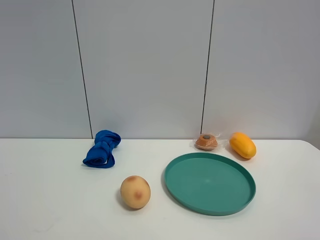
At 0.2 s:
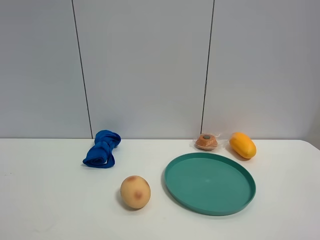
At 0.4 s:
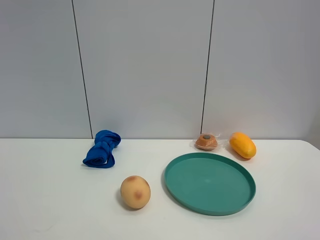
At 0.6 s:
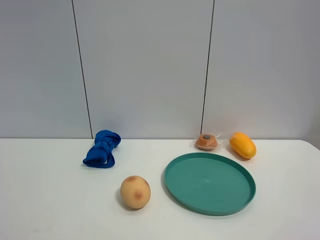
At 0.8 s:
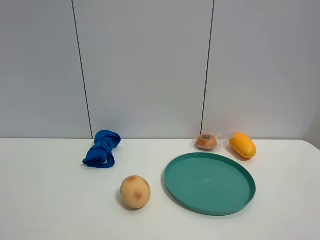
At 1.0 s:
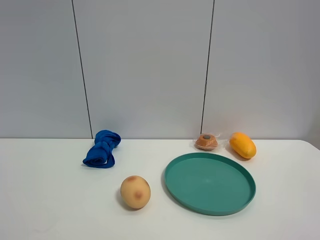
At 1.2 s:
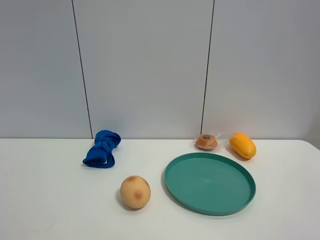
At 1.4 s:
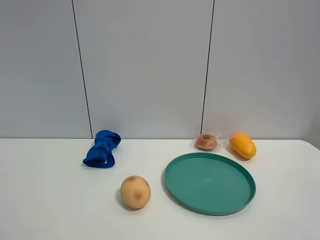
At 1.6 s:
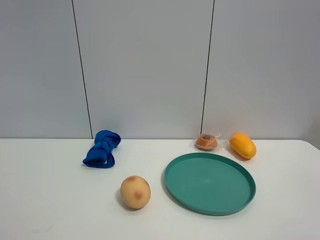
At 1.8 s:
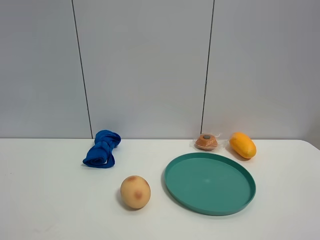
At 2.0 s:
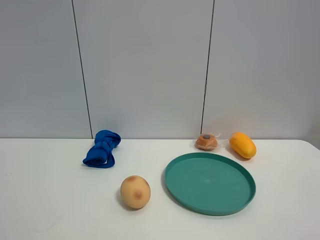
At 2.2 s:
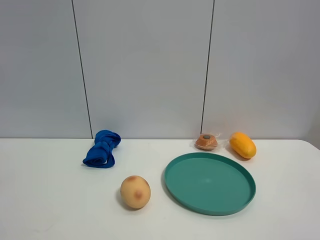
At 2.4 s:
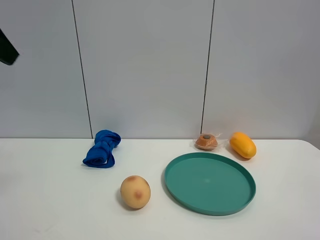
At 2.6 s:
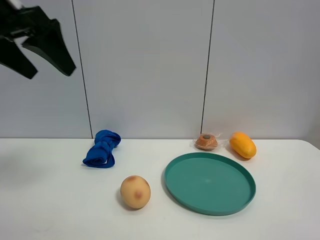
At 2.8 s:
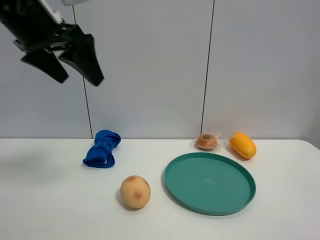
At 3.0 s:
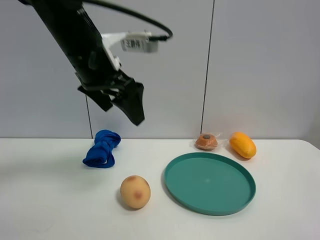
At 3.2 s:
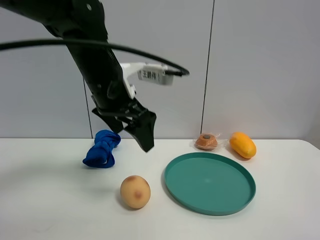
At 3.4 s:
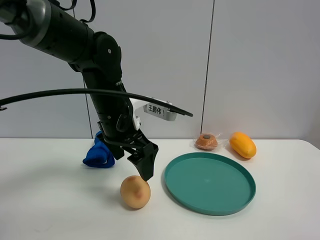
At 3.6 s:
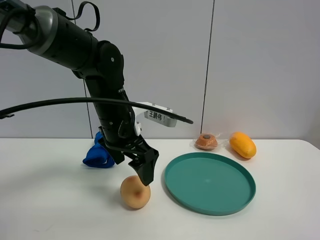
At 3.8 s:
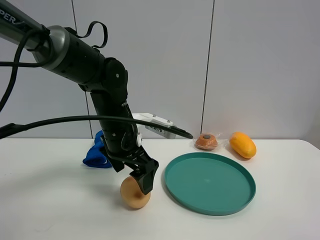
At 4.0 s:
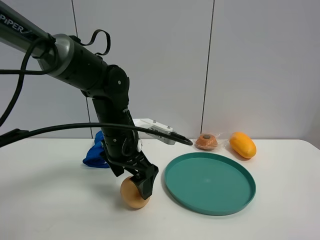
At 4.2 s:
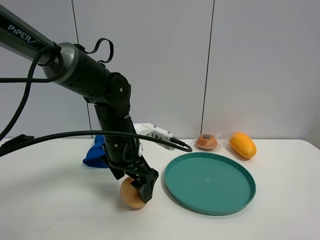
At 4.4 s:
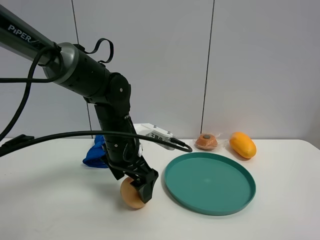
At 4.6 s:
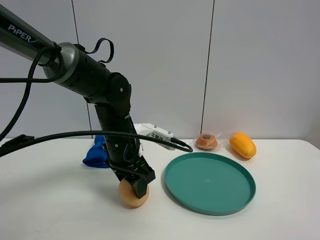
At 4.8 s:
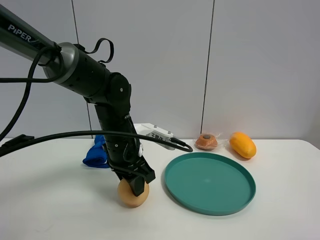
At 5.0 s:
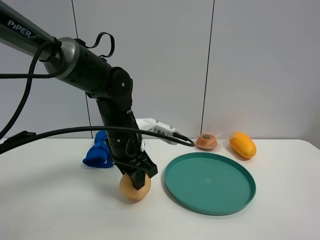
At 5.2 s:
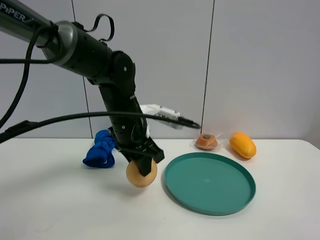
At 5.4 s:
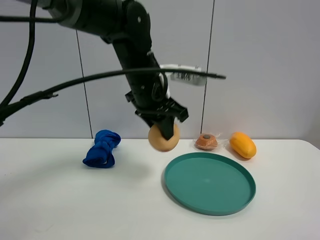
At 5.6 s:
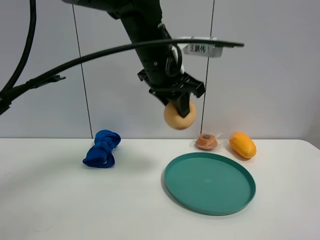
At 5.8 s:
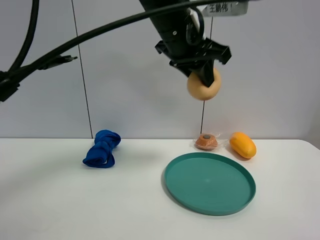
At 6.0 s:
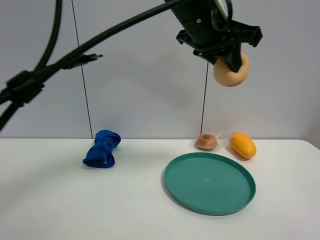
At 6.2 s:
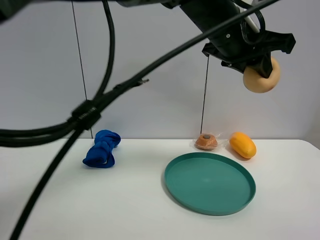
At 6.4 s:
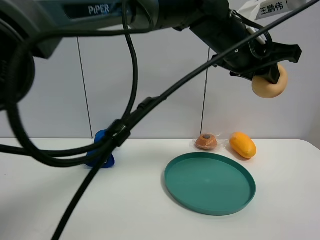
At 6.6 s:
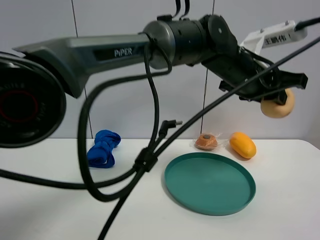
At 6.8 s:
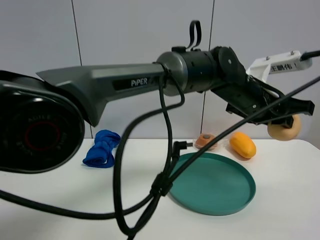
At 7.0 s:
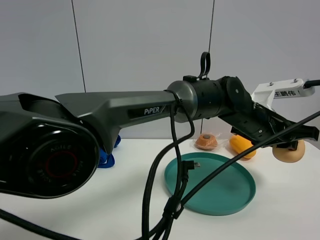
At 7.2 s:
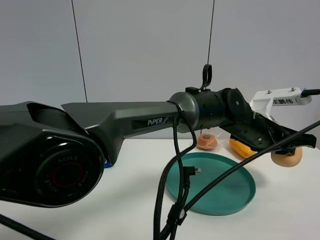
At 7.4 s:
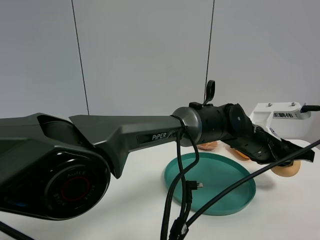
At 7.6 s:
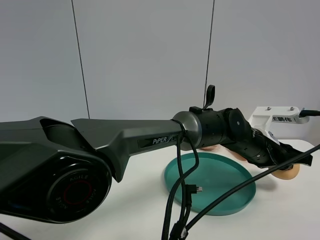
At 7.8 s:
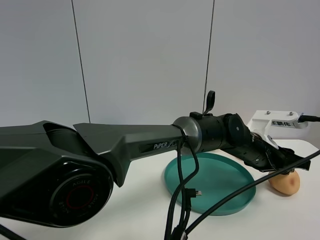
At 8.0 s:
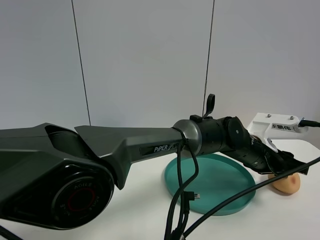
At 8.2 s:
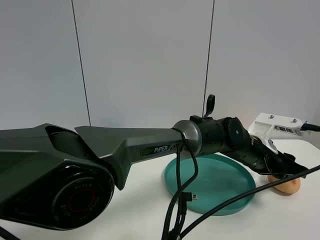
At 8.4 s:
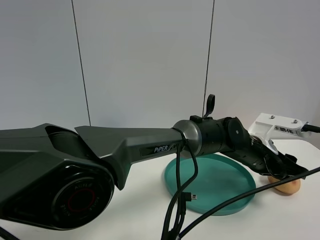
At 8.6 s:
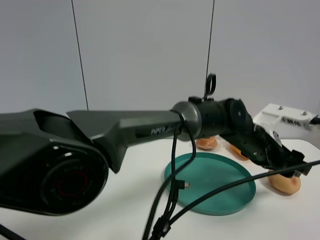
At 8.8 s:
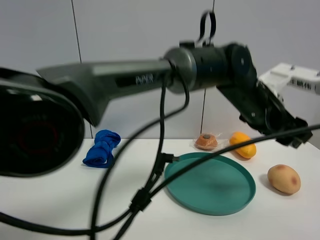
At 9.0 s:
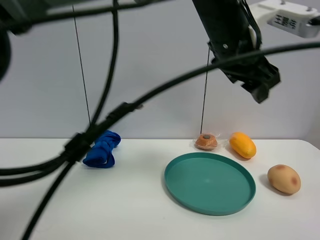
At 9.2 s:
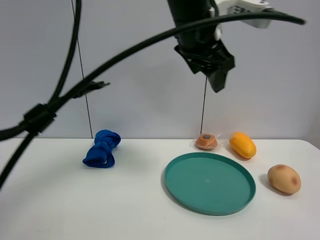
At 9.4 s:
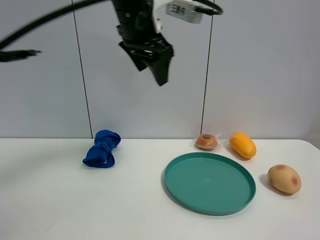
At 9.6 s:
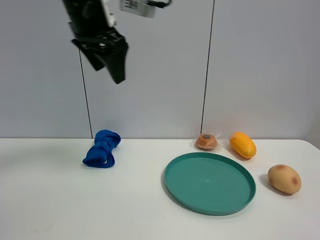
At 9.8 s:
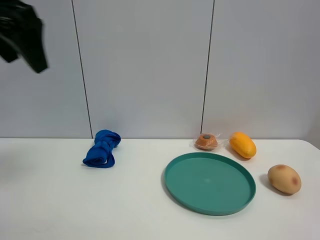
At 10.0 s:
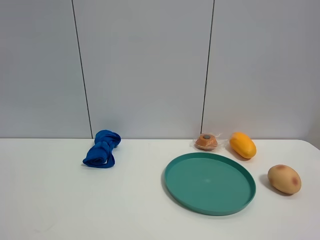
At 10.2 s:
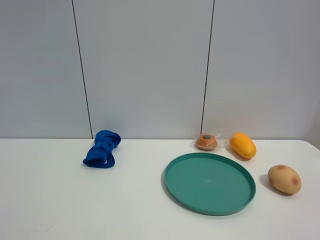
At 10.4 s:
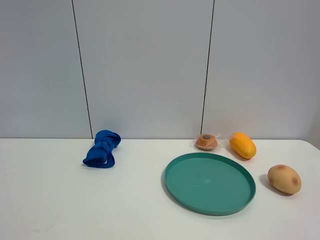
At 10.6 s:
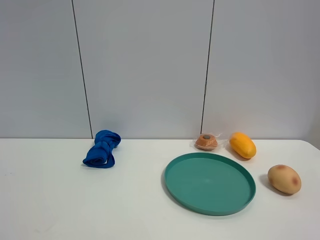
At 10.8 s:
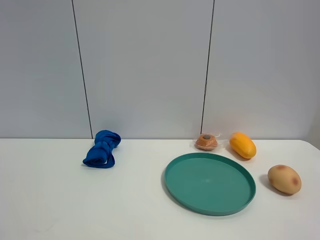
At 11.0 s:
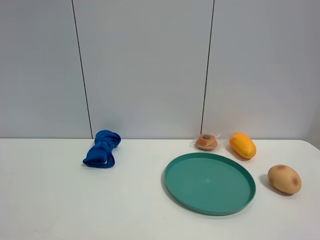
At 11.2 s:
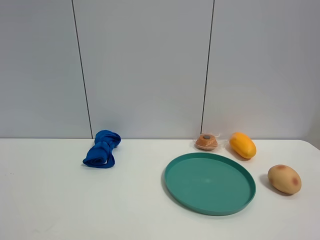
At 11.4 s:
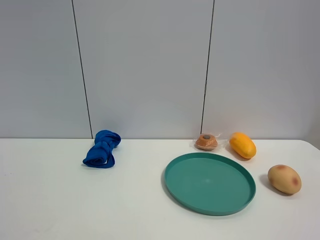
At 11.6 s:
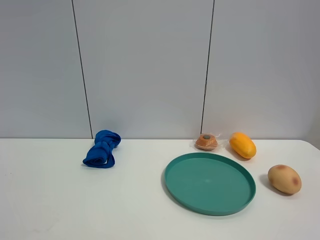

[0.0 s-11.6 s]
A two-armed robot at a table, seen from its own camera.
Task of the whole recording: the gripper move the object.
Step, 0.0 to 4.8 s: Grasp the egg yolk pastry with the left gripper.
Step, 5.0 to 8.6 s: Place the egg yolk pastry on the table with the left gripper.
1.4 to 2.8 s: The left gripper goes some 30 cm forward.
2.8 to 4.4 s: The left gripper moves downward and to the right, roughly 25 cm.
4.4 to 5.8 s: The left gripper heads upward and to the right, covering roughly 25 cm, and closes its fingers.
5.8 to 7.2 s: The left gripper is displaced downward and to the right by roughly 25 cm.
7.2 to 8.8 s: The left gripper is displaced upward by some 10 cm, and opens.
8.8 to 10.2 s: The left gripper shifts about 60 cm to the left and backward.

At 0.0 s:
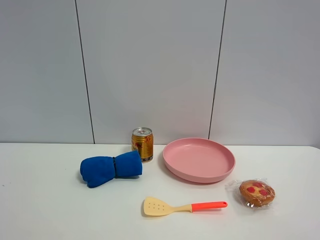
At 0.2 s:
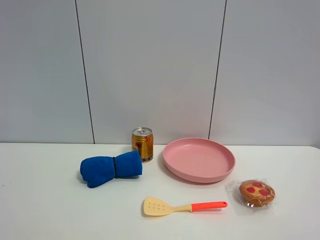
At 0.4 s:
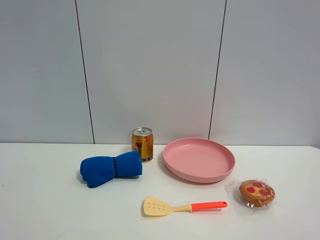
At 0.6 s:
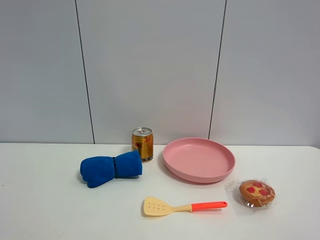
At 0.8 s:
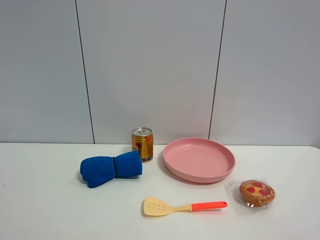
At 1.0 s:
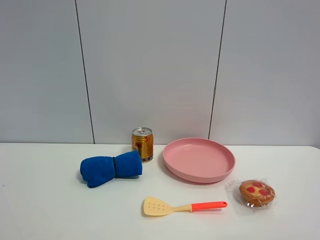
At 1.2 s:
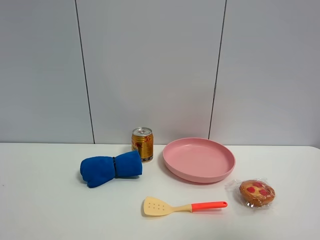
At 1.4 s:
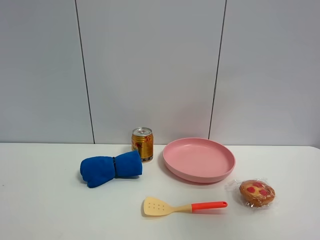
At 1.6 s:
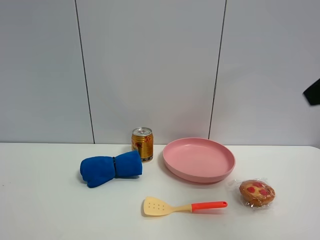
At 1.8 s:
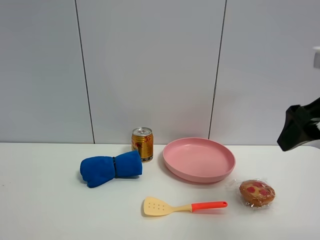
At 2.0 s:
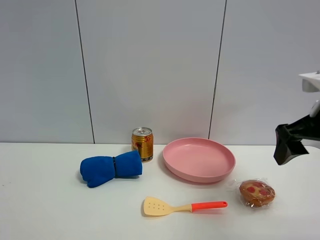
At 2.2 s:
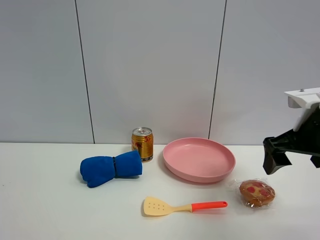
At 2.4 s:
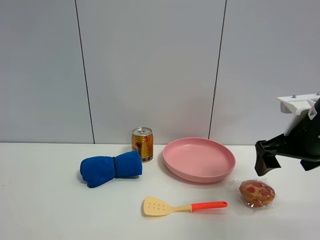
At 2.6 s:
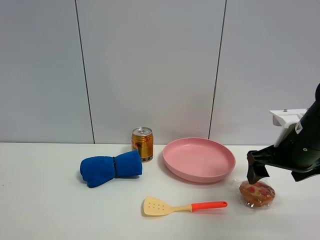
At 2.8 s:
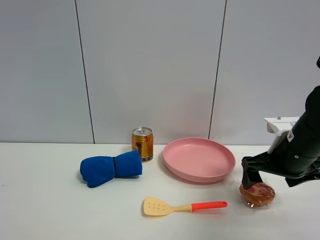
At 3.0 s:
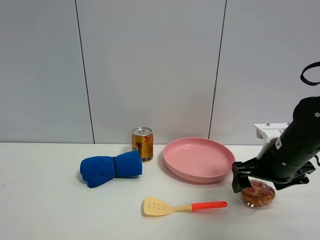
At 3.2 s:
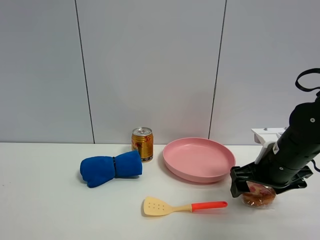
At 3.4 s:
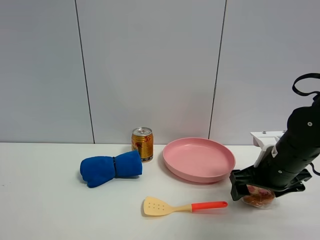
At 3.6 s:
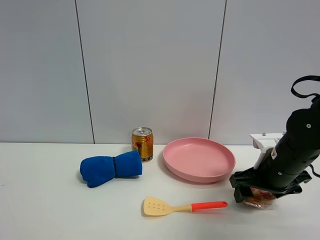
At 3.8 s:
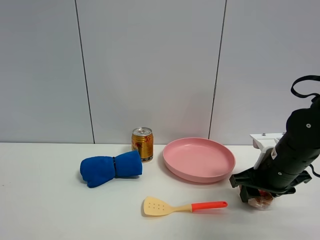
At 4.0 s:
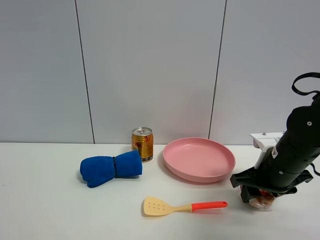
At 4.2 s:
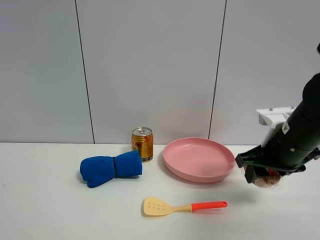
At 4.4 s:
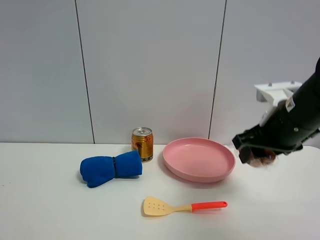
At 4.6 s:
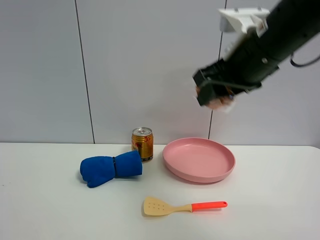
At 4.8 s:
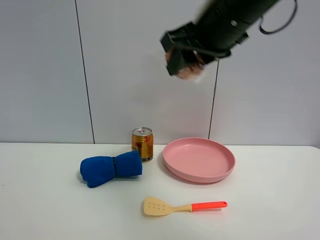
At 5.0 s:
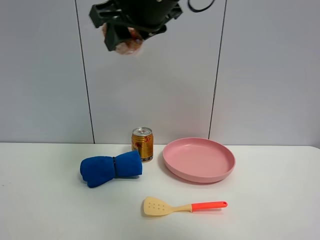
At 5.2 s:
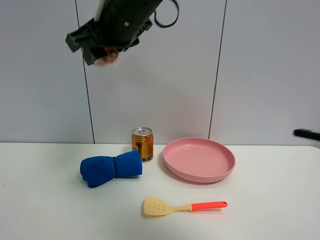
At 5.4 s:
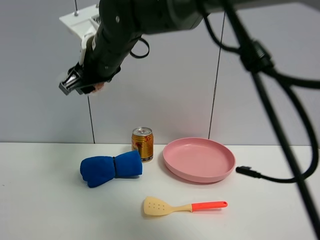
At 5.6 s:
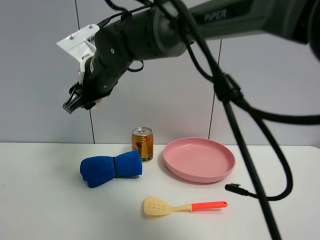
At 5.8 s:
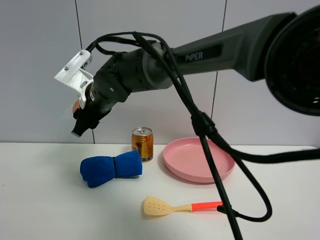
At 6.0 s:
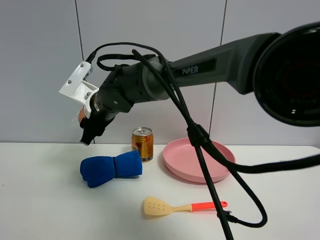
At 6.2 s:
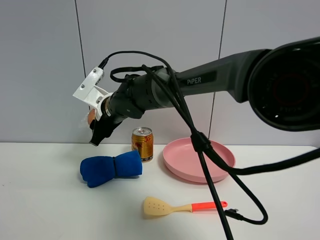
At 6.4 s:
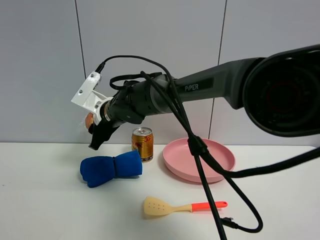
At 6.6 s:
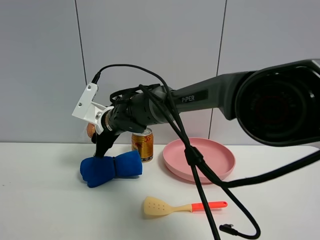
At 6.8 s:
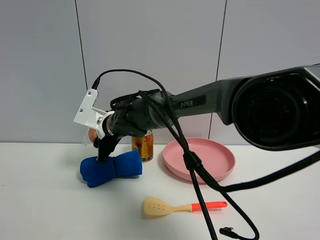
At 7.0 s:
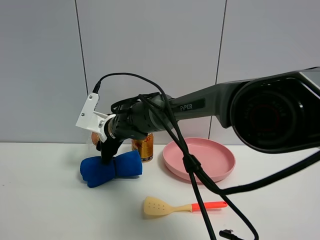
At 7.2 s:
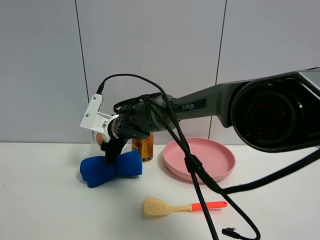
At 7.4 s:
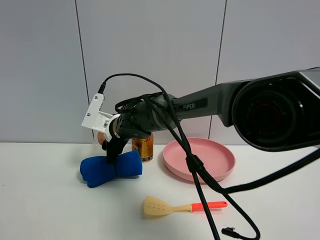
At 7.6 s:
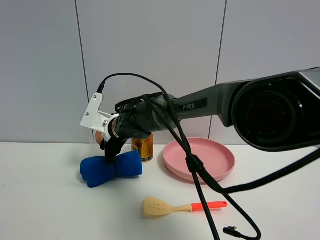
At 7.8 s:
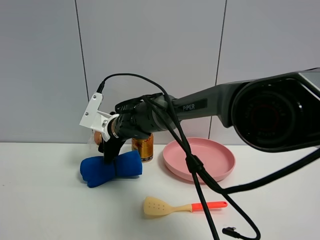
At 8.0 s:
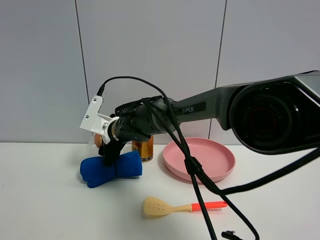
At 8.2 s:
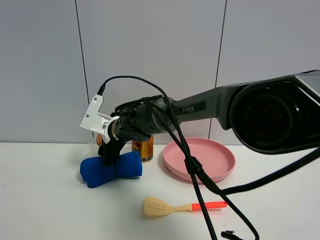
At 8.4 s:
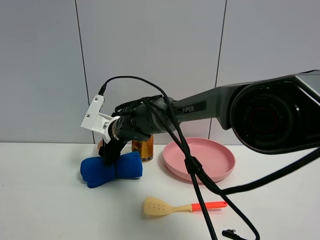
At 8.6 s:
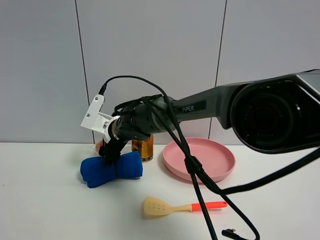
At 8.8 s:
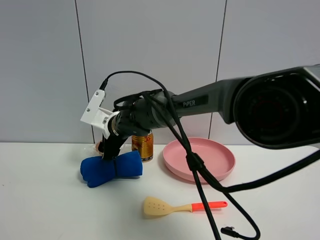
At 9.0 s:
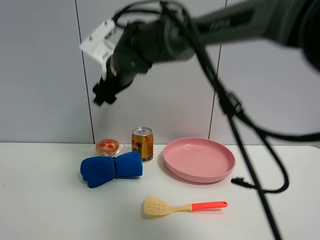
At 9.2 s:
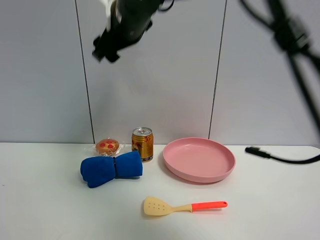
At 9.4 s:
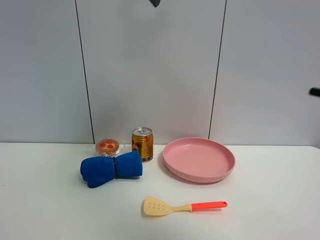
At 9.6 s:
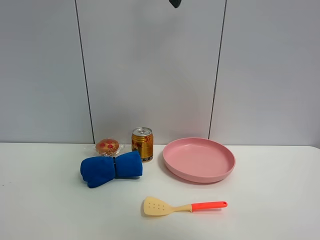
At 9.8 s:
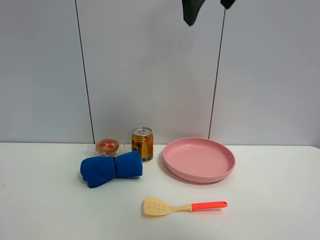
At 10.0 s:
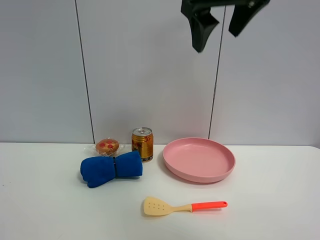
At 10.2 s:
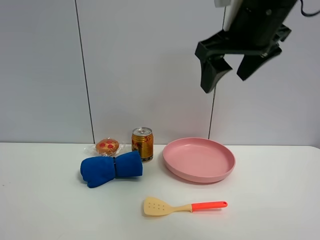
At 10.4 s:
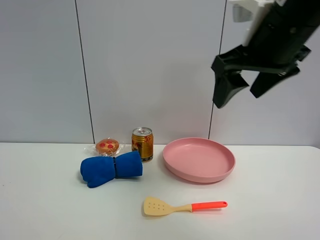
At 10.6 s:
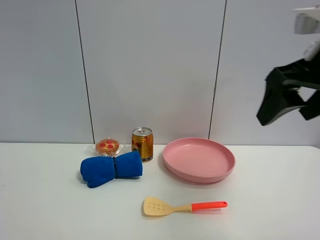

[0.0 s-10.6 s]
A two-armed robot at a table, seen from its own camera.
Task of the whole recording: the gripper move the object.
Step, 0.0 to 3.8 s: Grasp the egg tart with the right gripper.
Step, 4.0 to 8.2 s: Place the egg tart on the table with the right gripper.
0.0 to 1.6 s: The right gripper moves forward, approximately 20 cm.
1.6 to 3.0 s: The right gripper goes some 25 cm downward and forward.
3.0 to 4.6 s: The right gripper travels upward and to the left by roughly 20 cm, and closes up.
4.6 to 6.0 s: The right gripper shifts about 30 cm to the left, downward and forward.
6.0 to 7.6 s: The right gripper travels downward by about 5 cm.
7.6 to 9.0 s: The right gripper heads upward, covering about 15 cm, and opens.
9.0 to 10.6 s: The right gripper goes approximately 35 cm to the right and backward.
